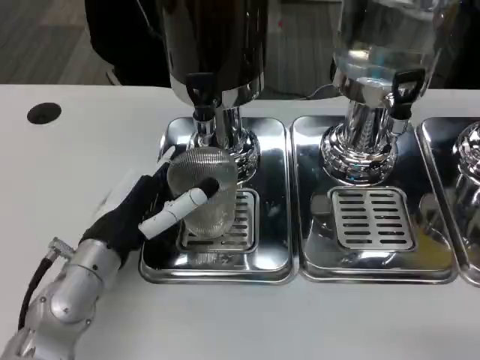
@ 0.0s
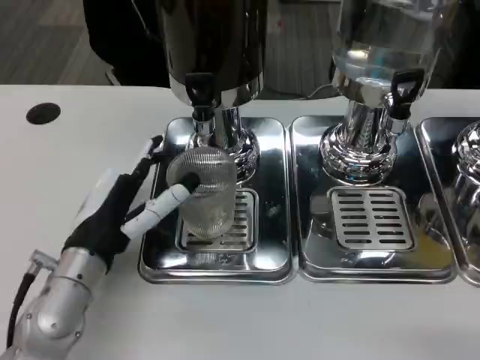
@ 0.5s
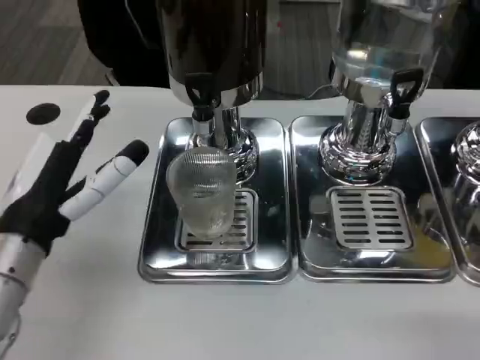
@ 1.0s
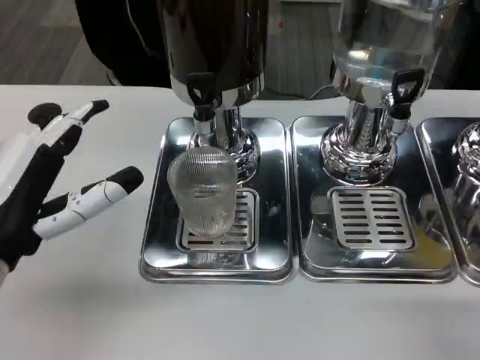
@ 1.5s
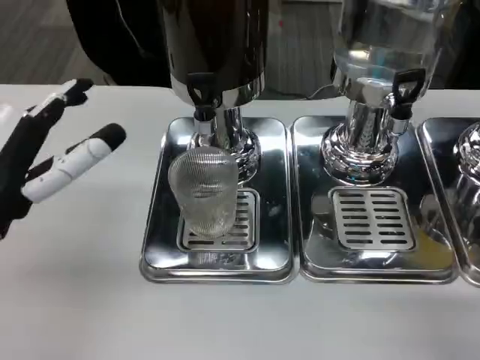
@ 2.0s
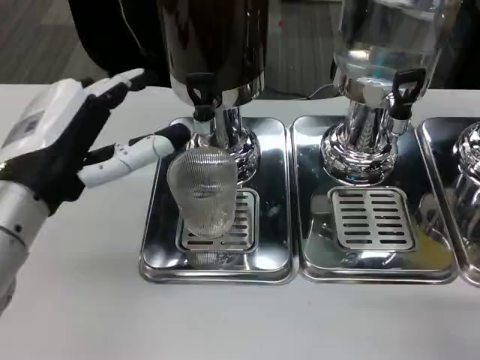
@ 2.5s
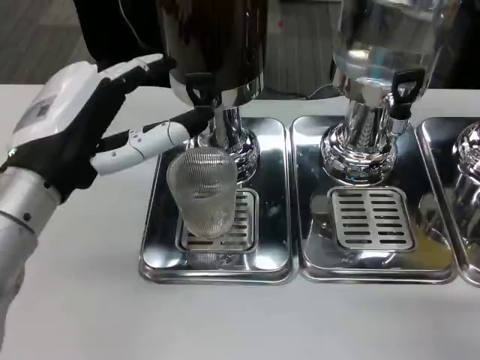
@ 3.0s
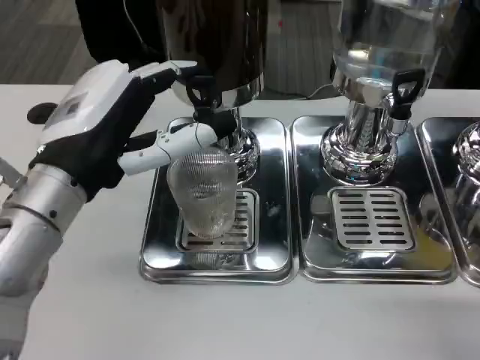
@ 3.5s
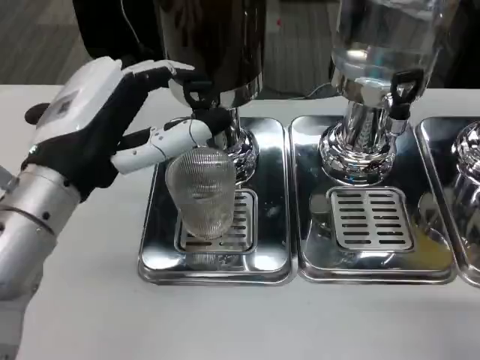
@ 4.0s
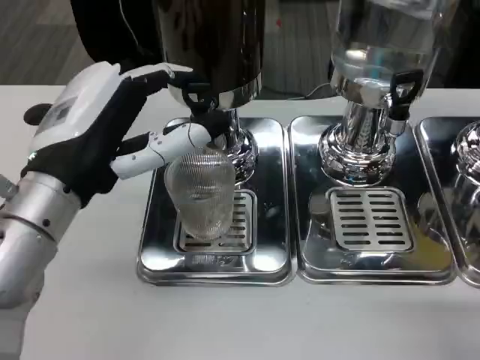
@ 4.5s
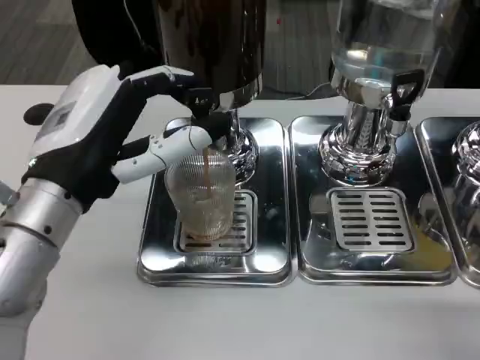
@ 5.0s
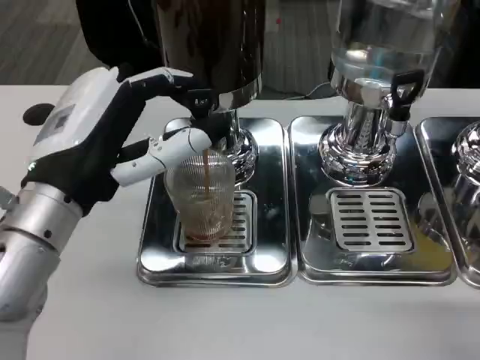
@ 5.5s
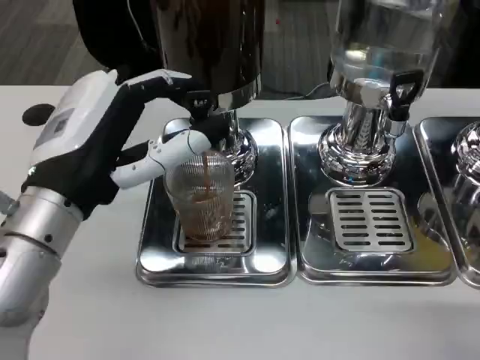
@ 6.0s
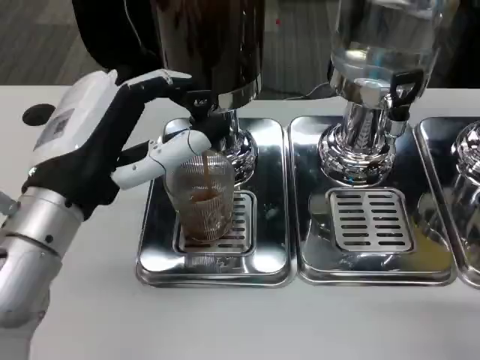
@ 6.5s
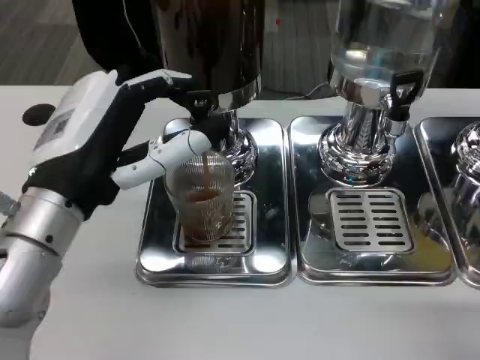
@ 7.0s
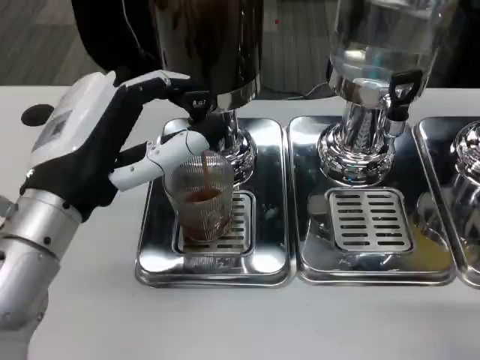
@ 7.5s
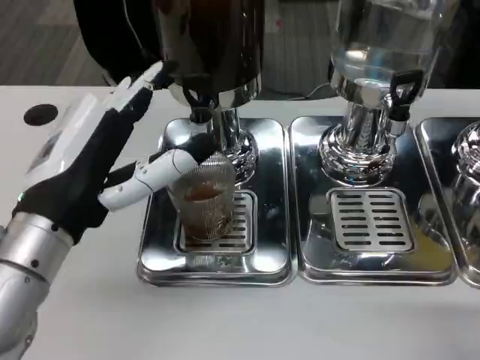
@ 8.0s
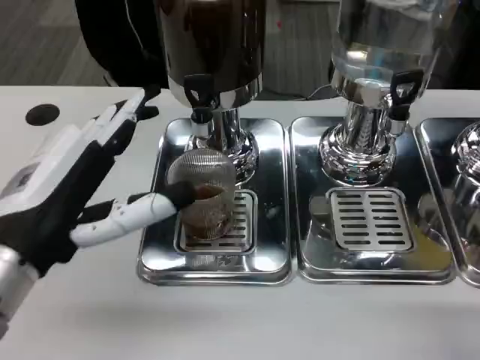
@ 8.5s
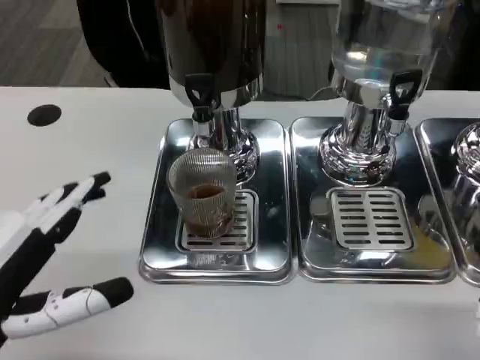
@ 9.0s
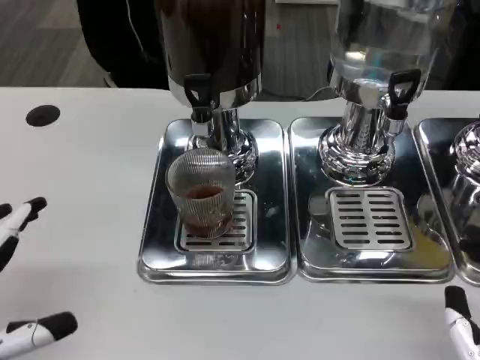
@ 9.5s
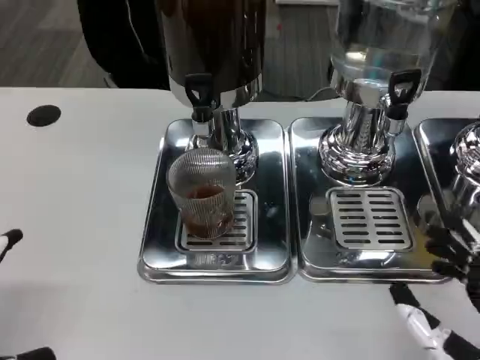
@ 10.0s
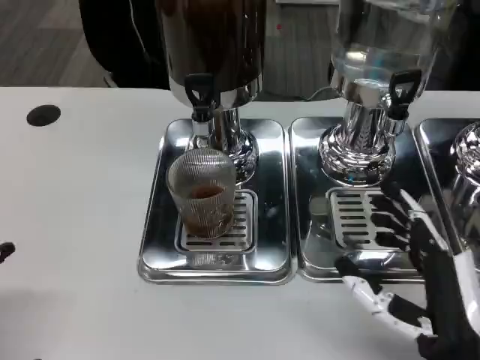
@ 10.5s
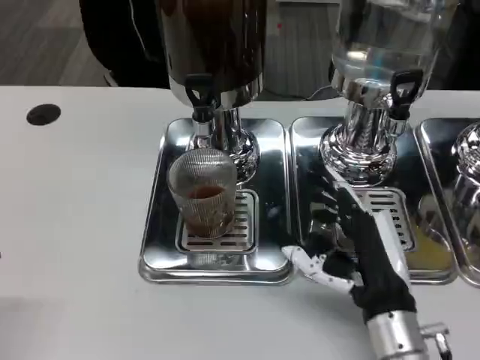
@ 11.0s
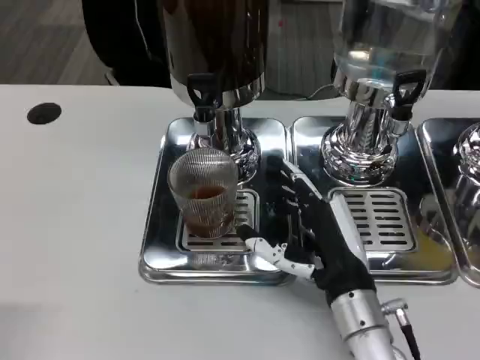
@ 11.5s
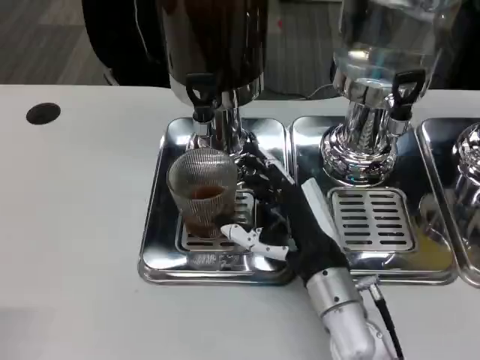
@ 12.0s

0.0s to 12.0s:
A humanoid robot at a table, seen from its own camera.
Task of the whole recording: Grasp the cup under the faucet to collect the drink, then remove the cup.
0.0s to 2.0s: The left hand moves upward and to the left, approximately 10 cm.
2.0s to 4.0s: The left hand goes approximately 5 cm to the right.
6.0s to 8.0s: The hands move only a little.
8.0s to 10.0s: The right hand ends up about 5 cm from where it was; the left hand heads to the left, backward and downward, covering roughly 20 cm.
10.0s to 12.0s: The right hand is displaced forward and to the left by approximately 20 cm.

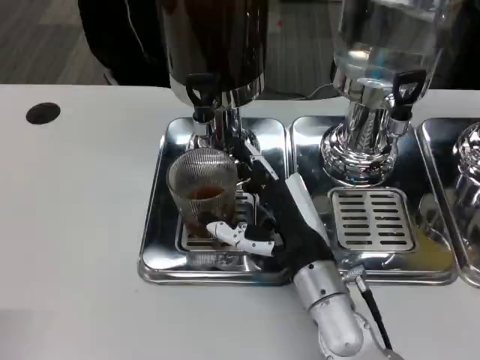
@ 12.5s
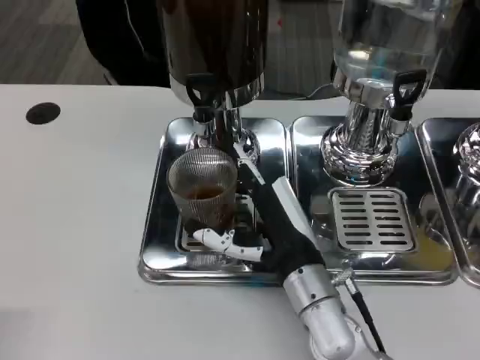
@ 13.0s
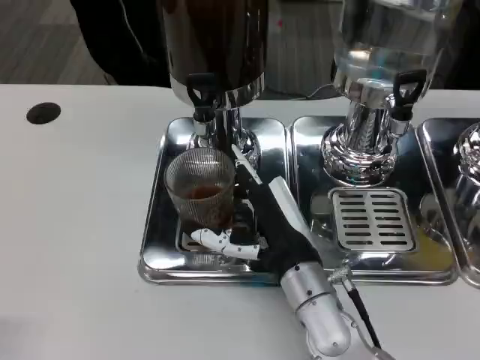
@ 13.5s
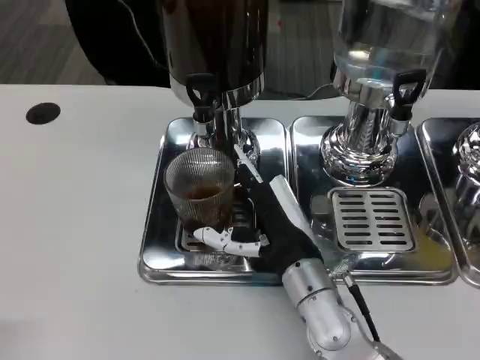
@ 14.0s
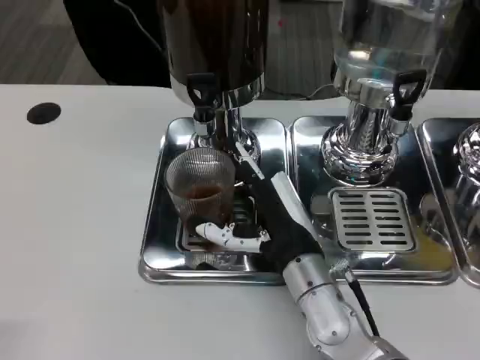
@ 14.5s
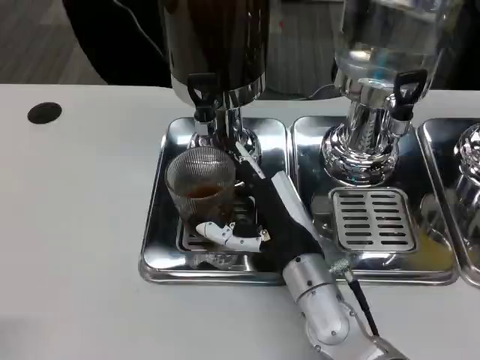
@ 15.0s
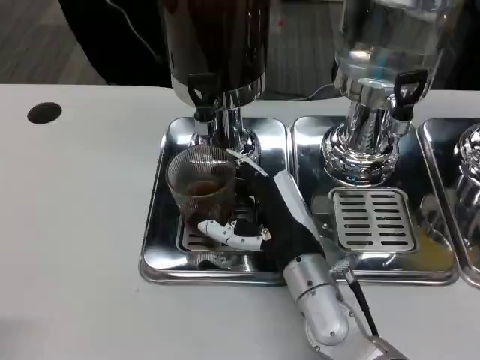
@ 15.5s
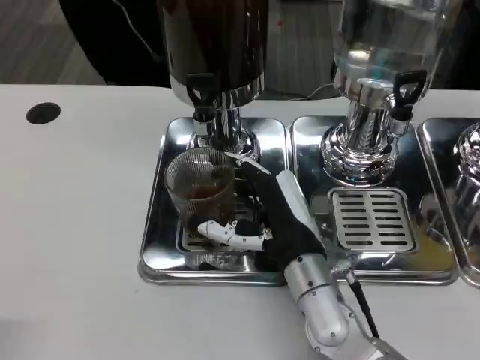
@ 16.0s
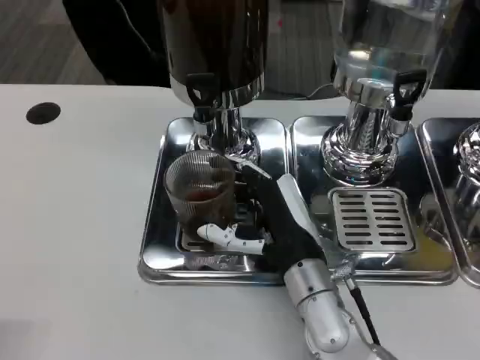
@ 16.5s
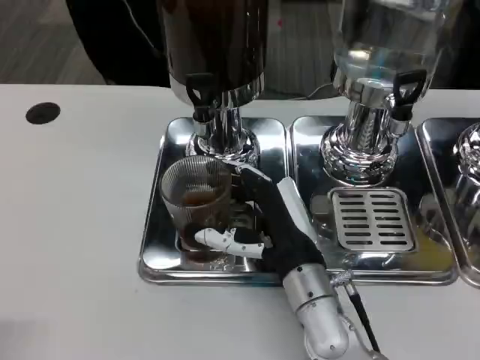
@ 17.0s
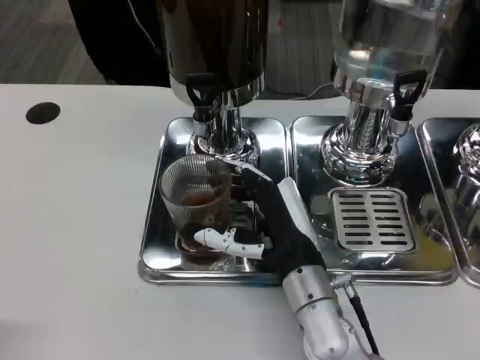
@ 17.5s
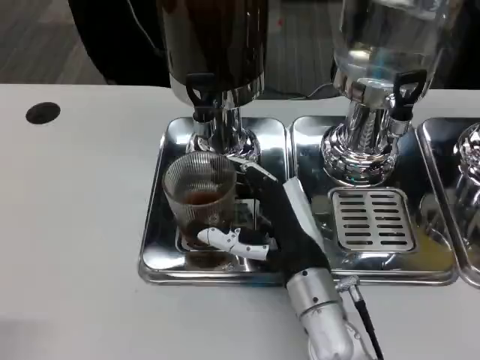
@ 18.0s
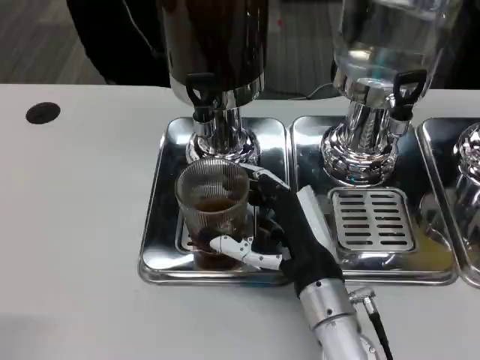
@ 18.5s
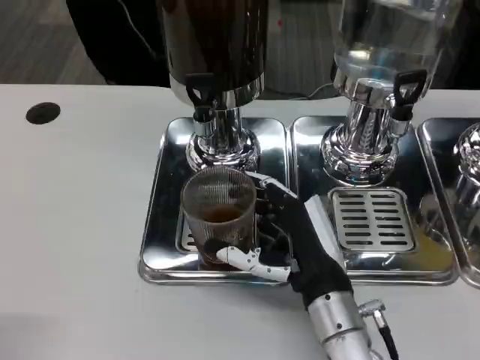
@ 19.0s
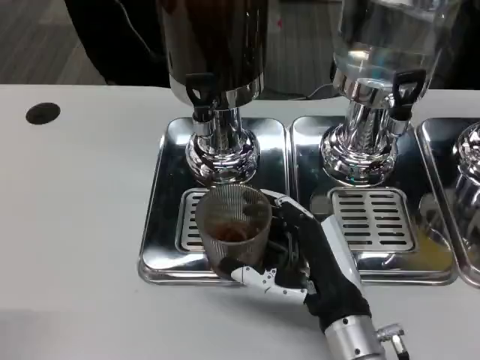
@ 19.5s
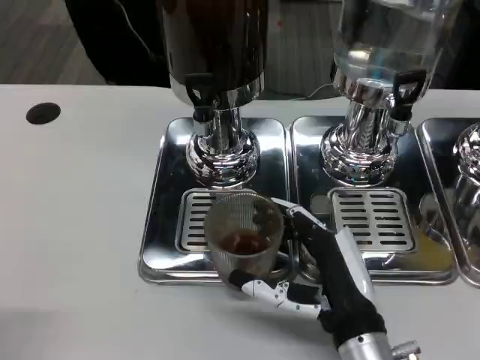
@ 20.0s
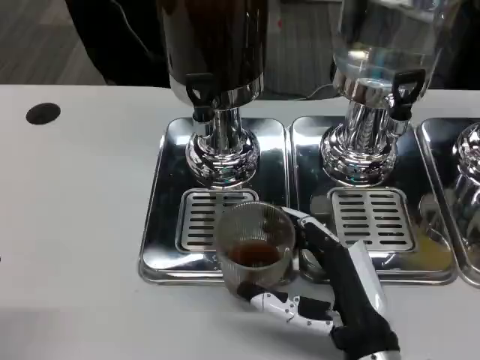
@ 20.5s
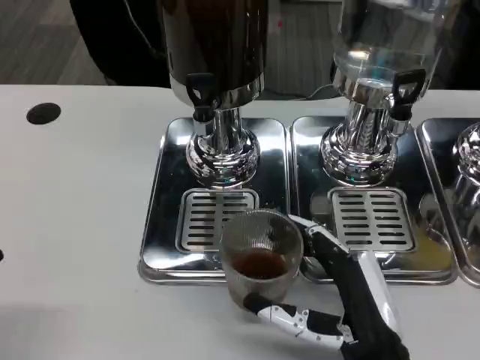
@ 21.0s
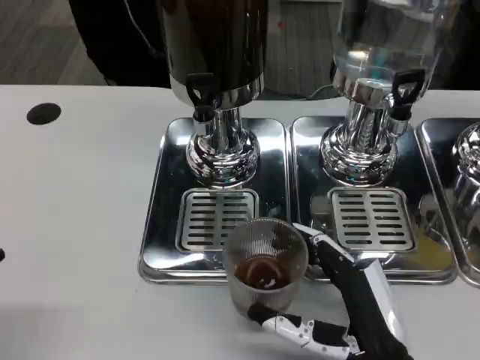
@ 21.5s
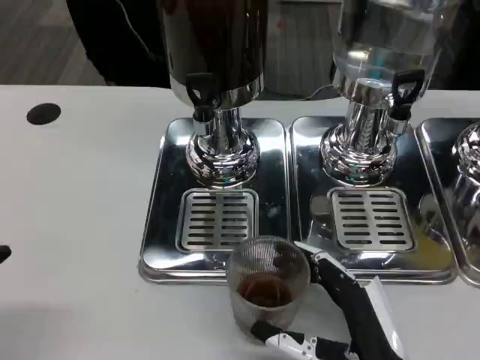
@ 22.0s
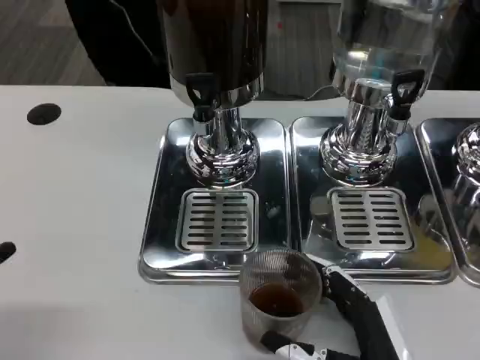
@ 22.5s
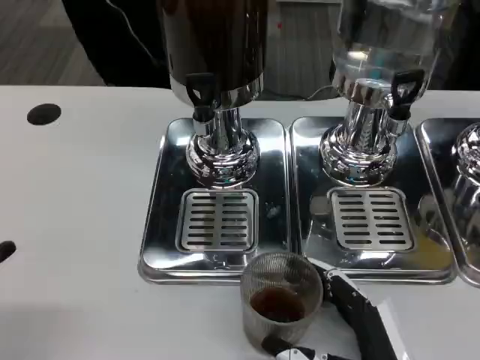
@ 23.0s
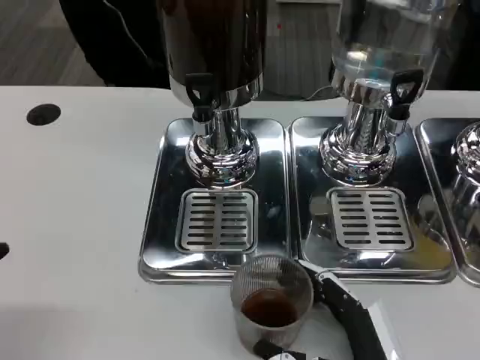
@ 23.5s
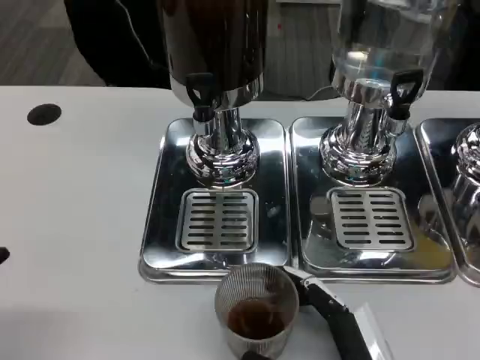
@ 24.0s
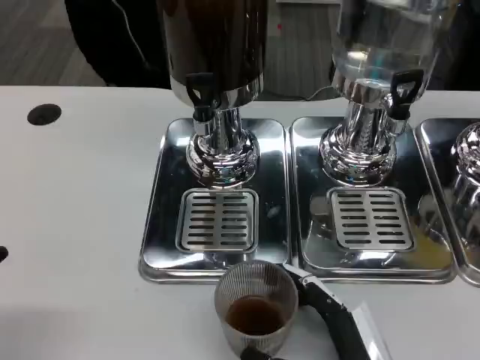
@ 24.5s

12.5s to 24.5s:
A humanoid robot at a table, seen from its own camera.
Task of the whole recording: Grasp the cup under the faucet to collect the drink, then remove the cup.
12.5s to 14.5s: The hands stay close to where they were, moving slightly.
14.5s to 16.5s: Neither hand changes place.
16.5s to 18.5s: The hands stay close to where they were, moving slightly.
18.5s to 20.5s: The right hand shifts some 5 cm backward.
20.5s to 22.5s: The right hand ends up roughly 5 cm from where it was.
22.5s to 24.5s: The hands move only a little.

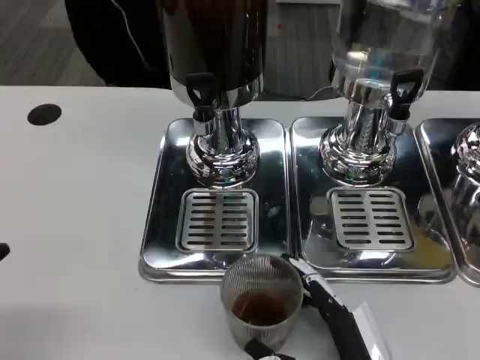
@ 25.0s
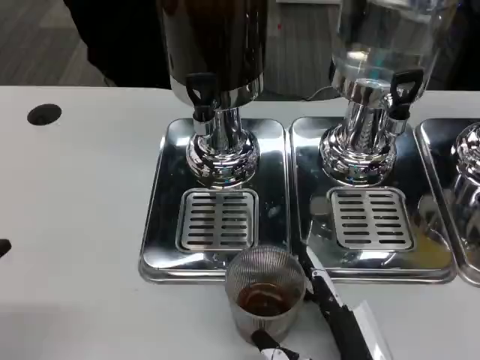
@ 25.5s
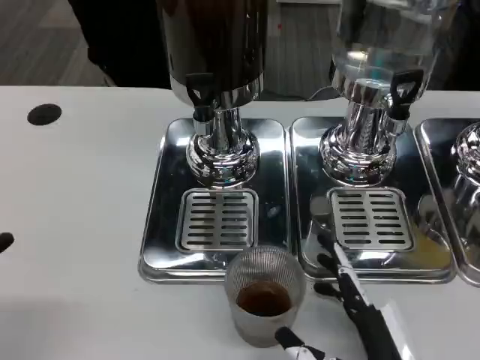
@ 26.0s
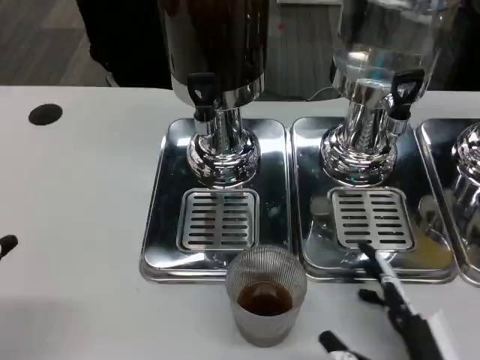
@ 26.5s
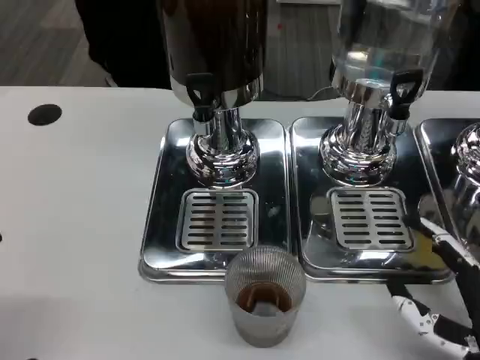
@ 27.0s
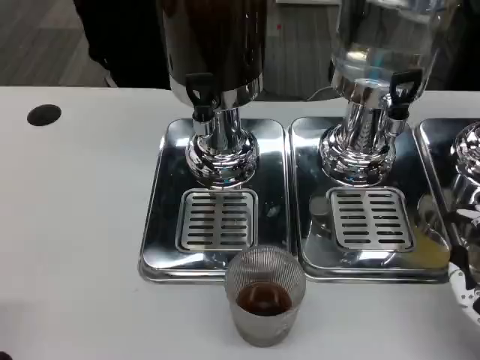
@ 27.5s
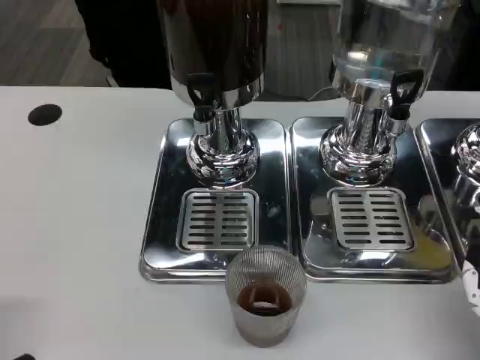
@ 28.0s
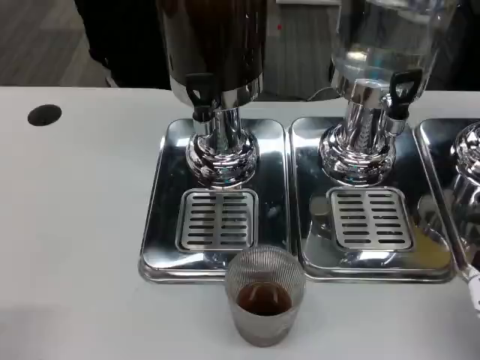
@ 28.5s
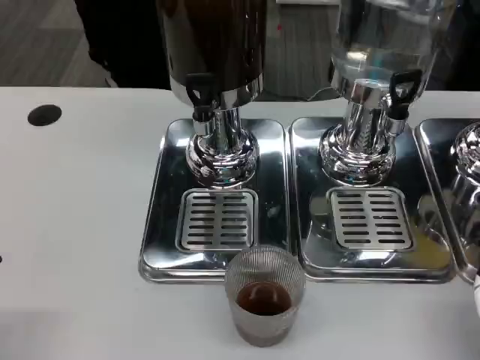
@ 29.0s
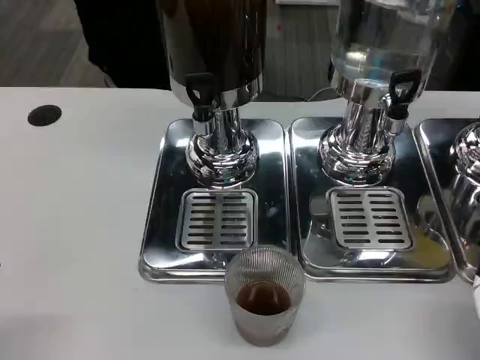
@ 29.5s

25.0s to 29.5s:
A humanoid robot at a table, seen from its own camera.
Task of the whole recording: Grasp the cup under the faucet to collect the drink, then remove the cup.
25.0s to 27.0s: The right hand is displaced to the right by roughly 10 cm.
27.0s to 29.5s: The left hand ends up some 5 cm from where it was.
